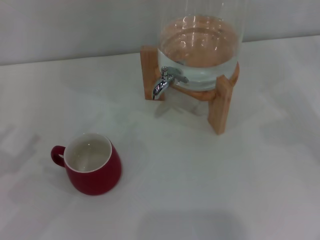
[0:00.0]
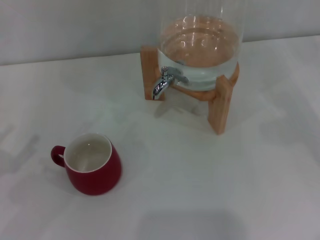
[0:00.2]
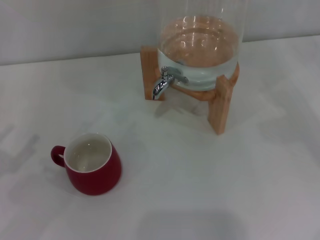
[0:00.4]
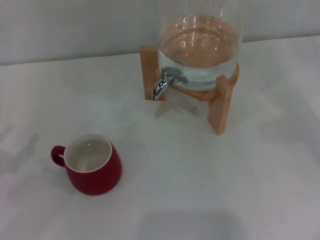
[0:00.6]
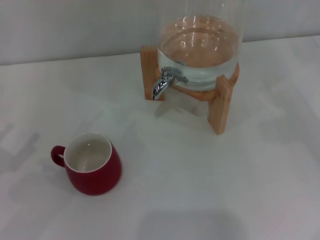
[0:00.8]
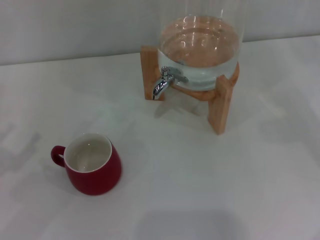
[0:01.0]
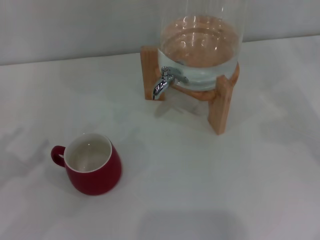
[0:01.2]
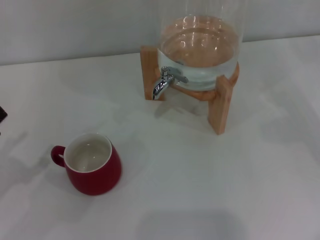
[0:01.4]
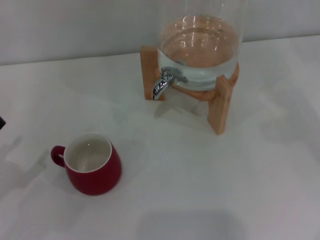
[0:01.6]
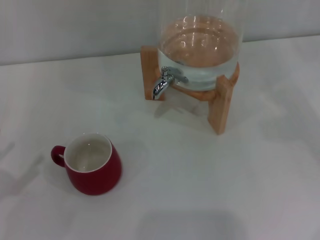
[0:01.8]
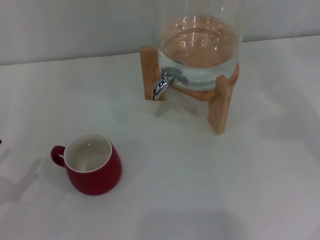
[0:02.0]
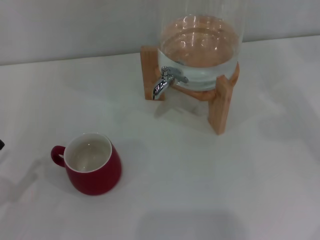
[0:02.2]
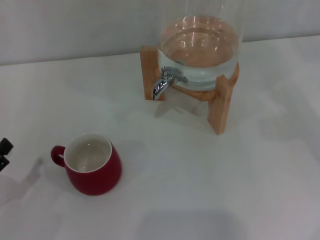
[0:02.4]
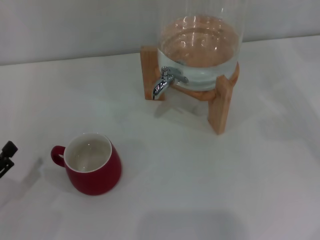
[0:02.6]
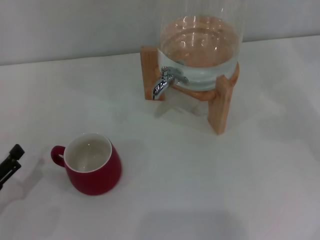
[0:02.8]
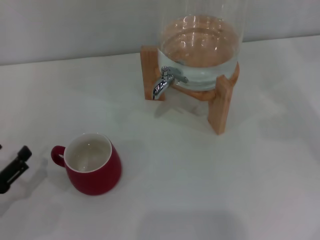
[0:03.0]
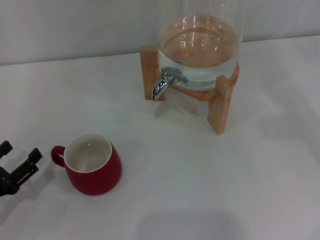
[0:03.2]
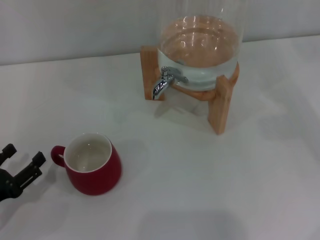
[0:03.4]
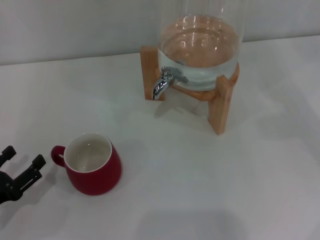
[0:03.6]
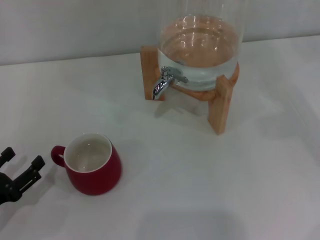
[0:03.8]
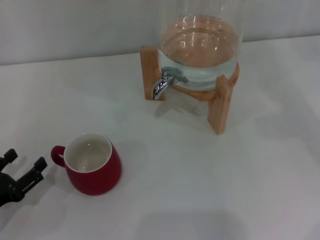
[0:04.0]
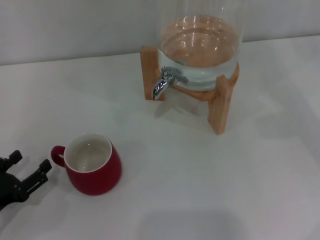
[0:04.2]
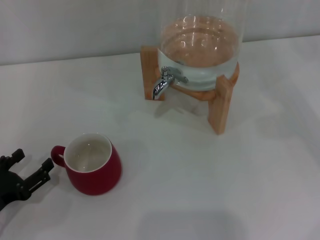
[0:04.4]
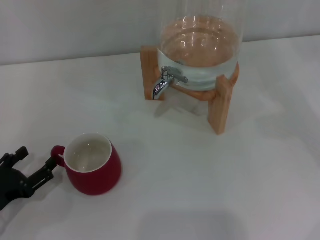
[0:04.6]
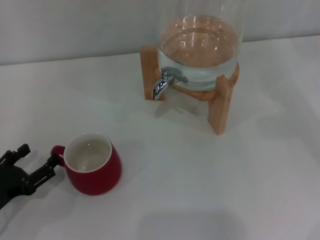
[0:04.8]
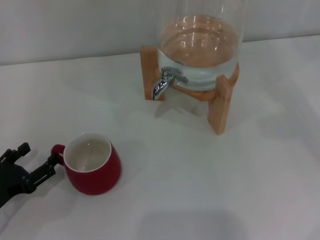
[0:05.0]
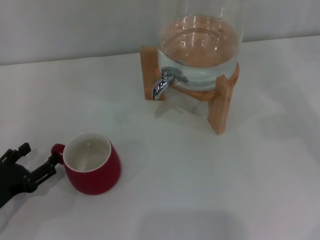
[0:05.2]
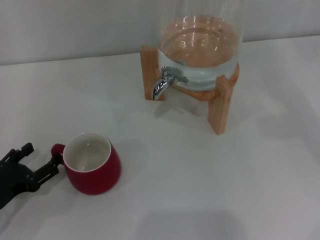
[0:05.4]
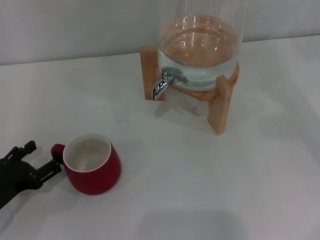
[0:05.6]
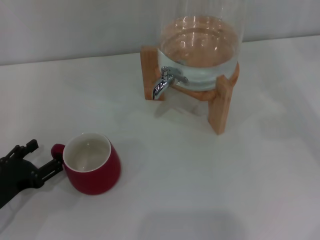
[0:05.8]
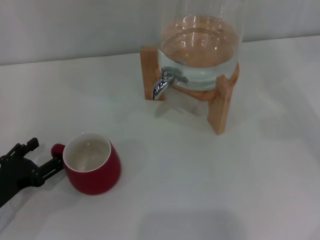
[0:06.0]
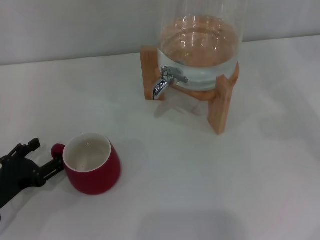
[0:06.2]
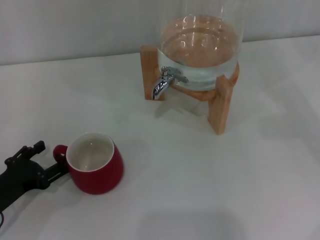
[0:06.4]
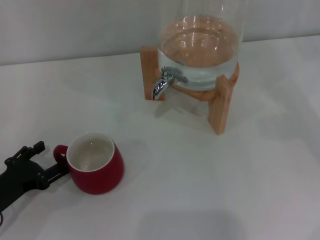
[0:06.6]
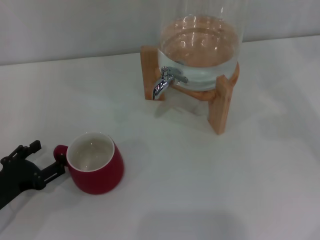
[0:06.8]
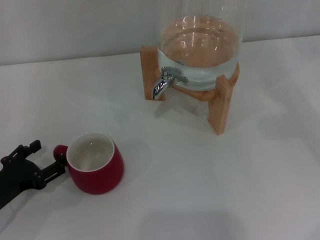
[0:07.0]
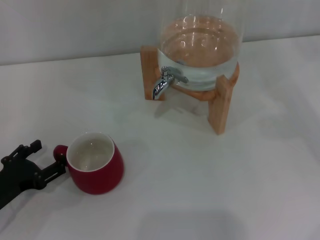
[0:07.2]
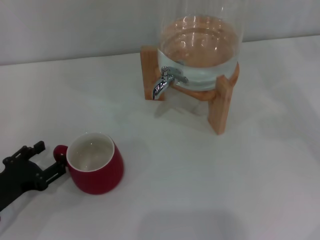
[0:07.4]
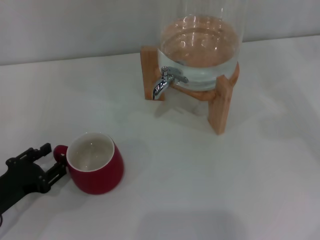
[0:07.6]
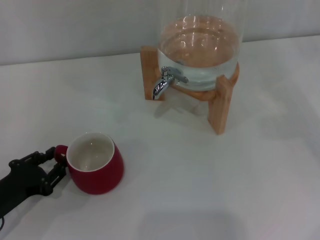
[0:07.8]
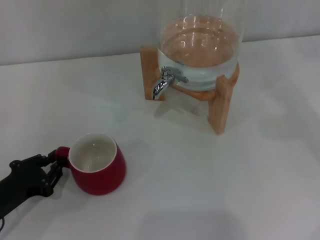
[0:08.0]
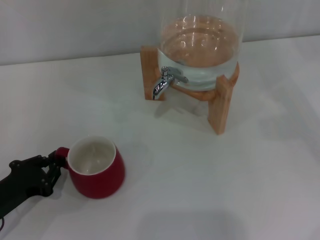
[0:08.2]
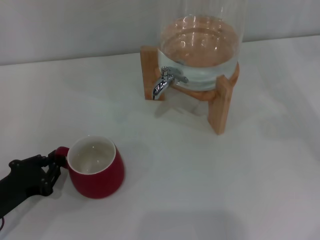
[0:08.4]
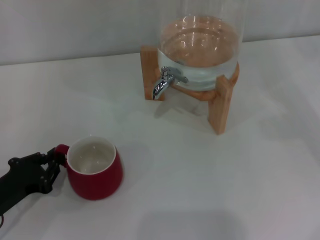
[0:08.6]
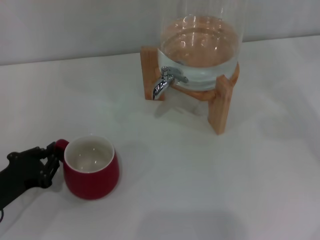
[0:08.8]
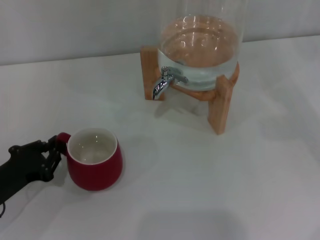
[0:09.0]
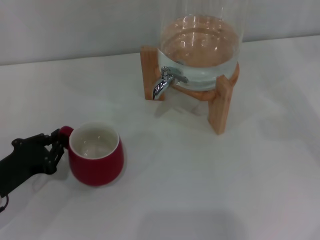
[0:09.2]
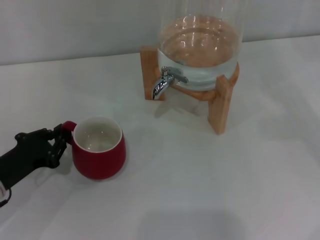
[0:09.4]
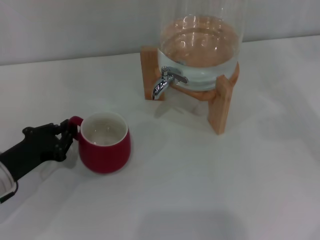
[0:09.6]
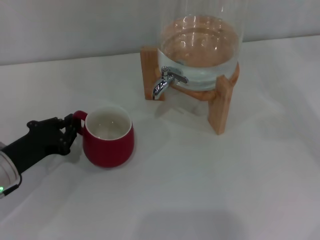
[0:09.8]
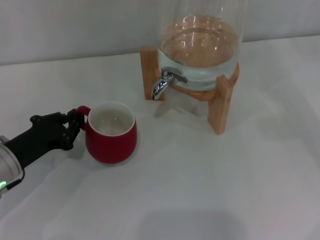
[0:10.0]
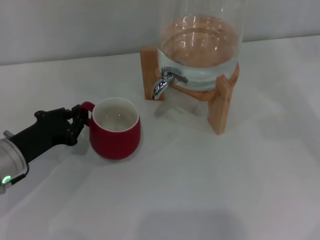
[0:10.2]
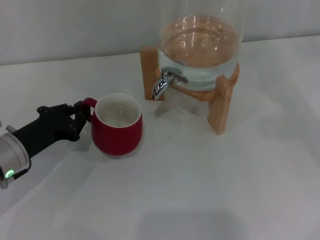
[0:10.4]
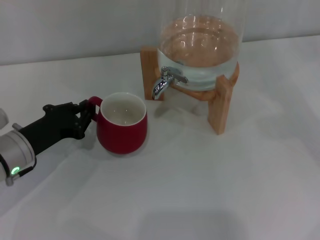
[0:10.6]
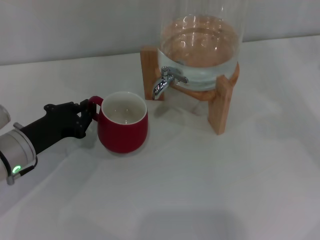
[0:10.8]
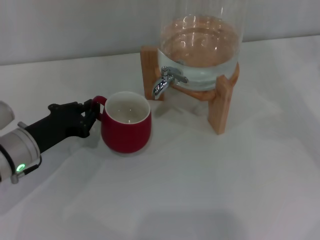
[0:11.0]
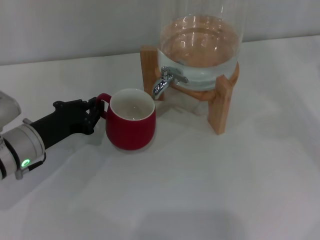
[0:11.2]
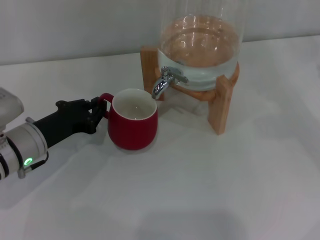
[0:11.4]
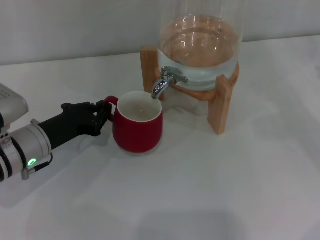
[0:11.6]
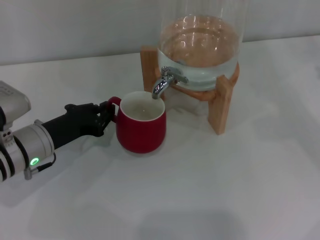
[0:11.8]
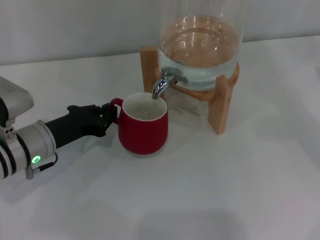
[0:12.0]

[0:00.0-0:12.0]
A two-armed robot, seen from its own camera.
Task of the whole recording: the left gripper pick up the red cup and place it horizontally under the faucet, the right gripper turn on the faucet to fill the cup, and then turn off the faucet.
0:01.6 to 0:03.0: The left gripper heads downward, covering some 5 cm.
0:03.0 to 0:07.6: There are only small adjustments of the grippers.
0:07.6 to 0:09.0: The left gripper closes.
0:09.0 to 0:10.4: The left gripper goes about 5 cm forward.
0:10.4 to 0:12.0: There are only small adjustments of the grippers.

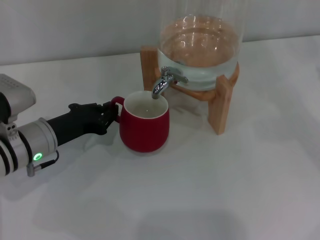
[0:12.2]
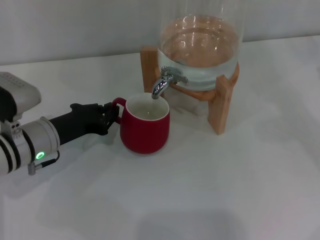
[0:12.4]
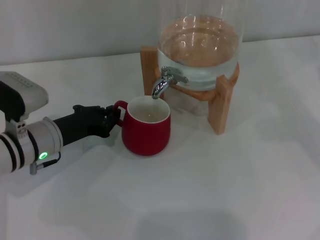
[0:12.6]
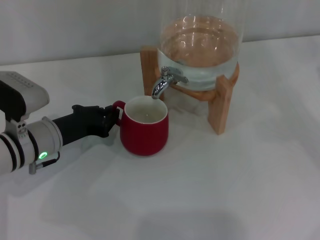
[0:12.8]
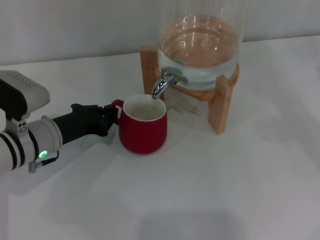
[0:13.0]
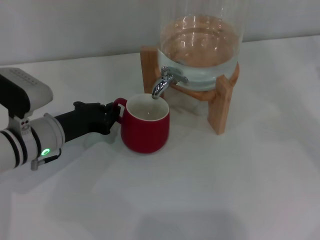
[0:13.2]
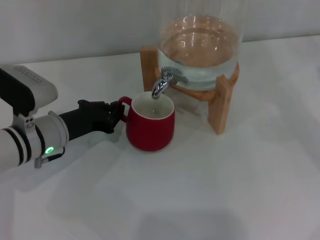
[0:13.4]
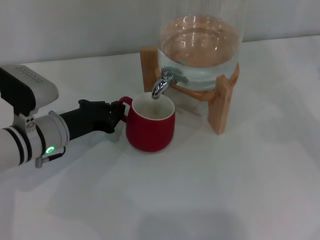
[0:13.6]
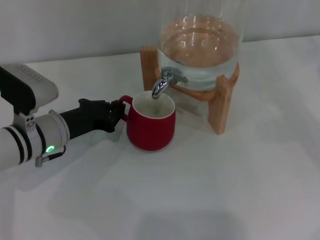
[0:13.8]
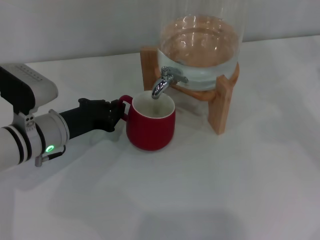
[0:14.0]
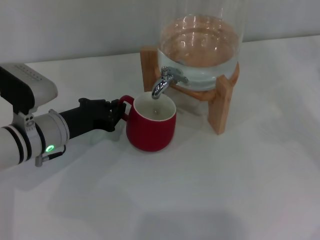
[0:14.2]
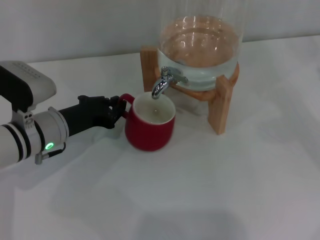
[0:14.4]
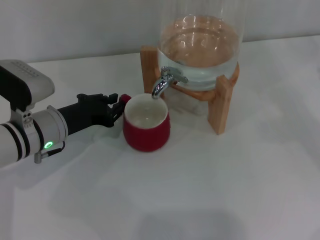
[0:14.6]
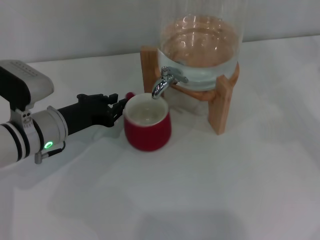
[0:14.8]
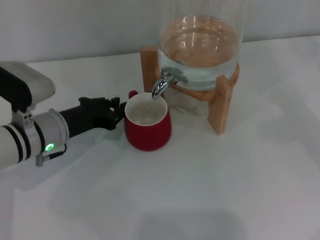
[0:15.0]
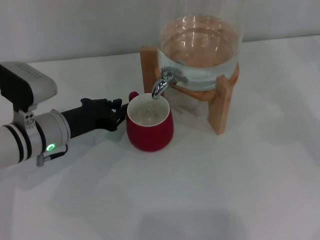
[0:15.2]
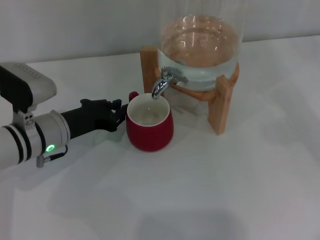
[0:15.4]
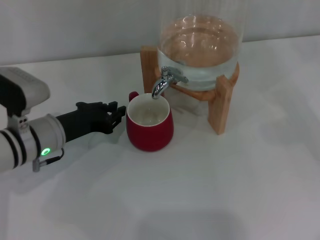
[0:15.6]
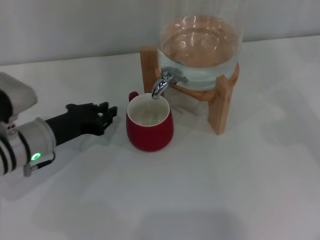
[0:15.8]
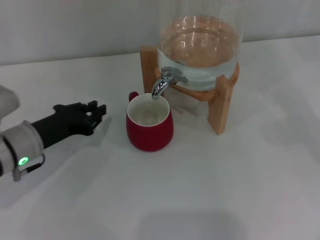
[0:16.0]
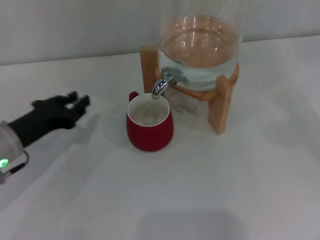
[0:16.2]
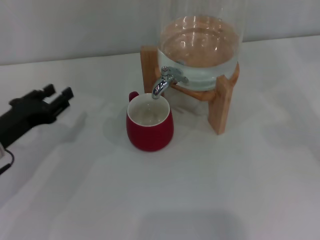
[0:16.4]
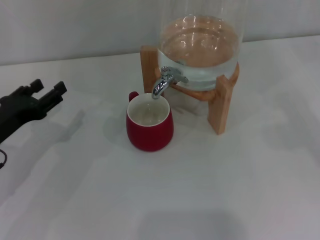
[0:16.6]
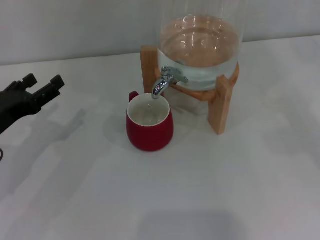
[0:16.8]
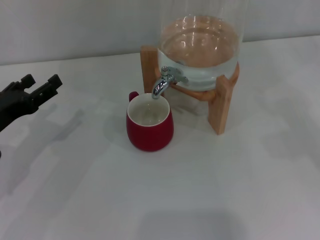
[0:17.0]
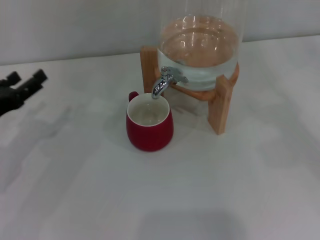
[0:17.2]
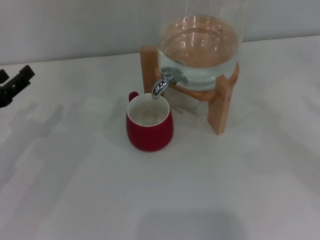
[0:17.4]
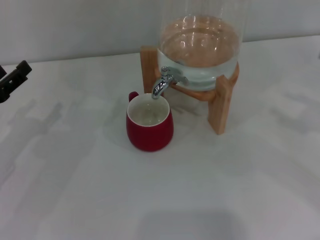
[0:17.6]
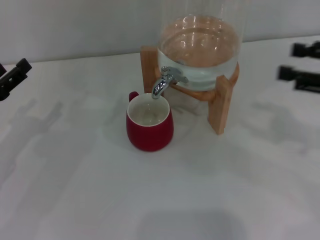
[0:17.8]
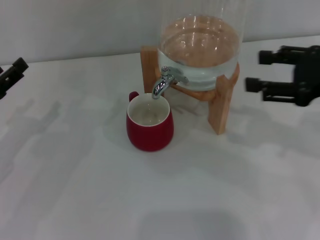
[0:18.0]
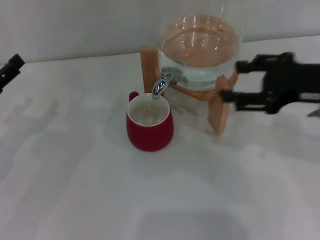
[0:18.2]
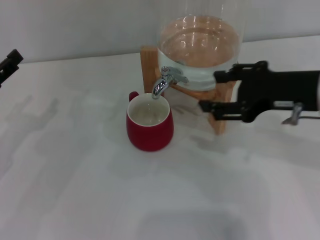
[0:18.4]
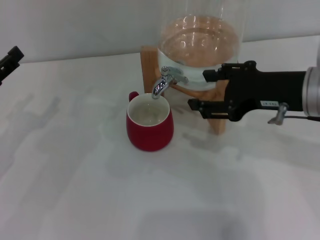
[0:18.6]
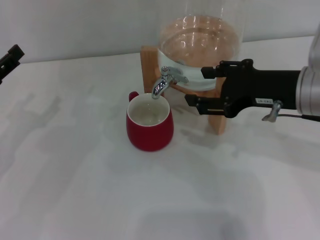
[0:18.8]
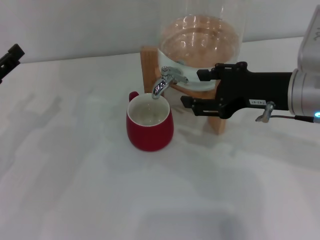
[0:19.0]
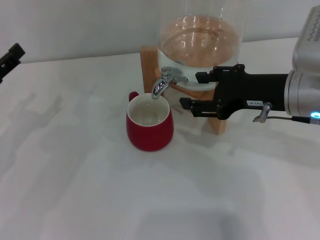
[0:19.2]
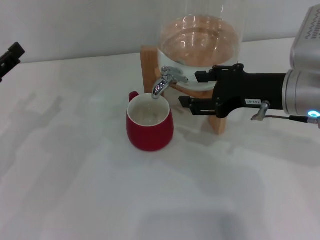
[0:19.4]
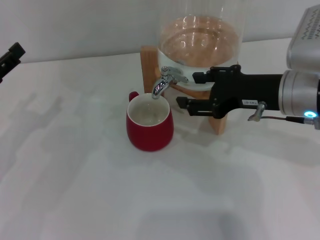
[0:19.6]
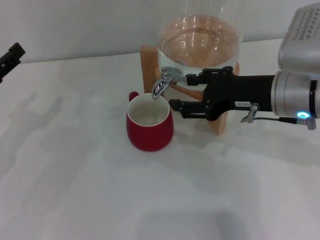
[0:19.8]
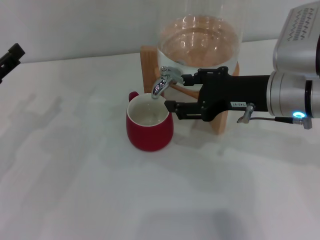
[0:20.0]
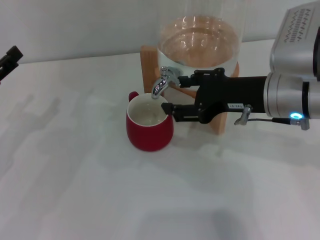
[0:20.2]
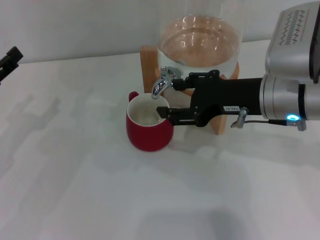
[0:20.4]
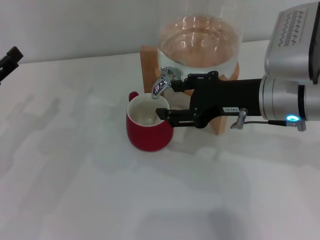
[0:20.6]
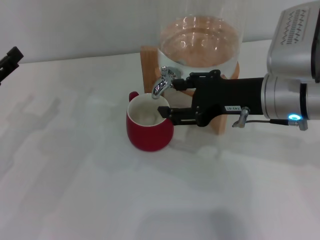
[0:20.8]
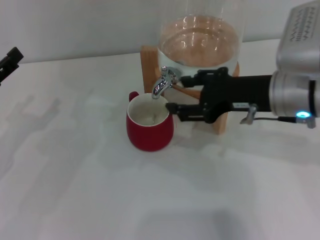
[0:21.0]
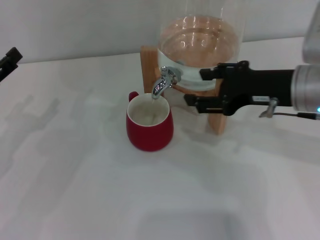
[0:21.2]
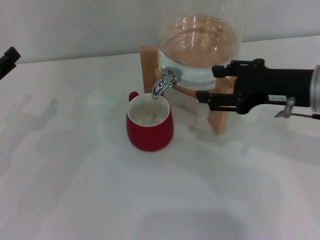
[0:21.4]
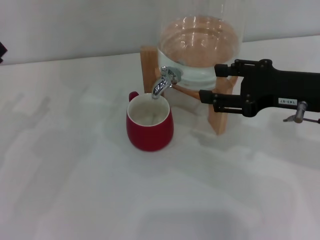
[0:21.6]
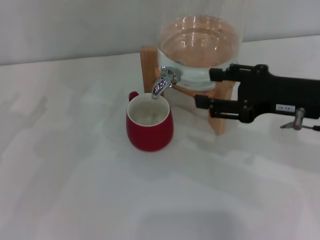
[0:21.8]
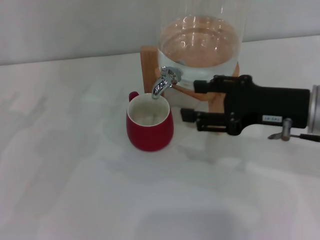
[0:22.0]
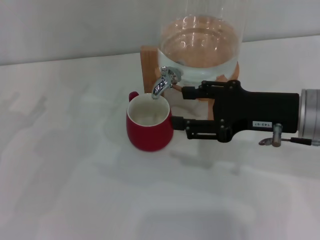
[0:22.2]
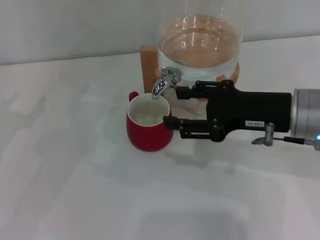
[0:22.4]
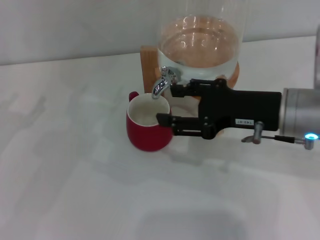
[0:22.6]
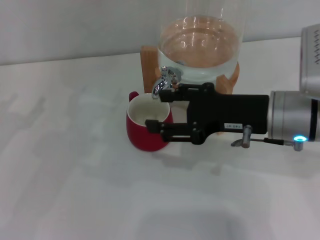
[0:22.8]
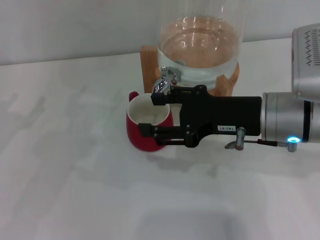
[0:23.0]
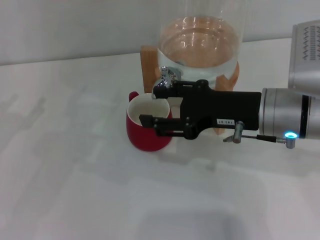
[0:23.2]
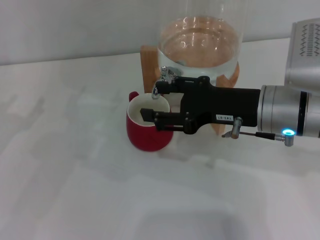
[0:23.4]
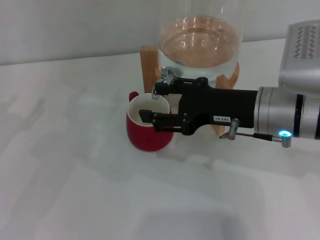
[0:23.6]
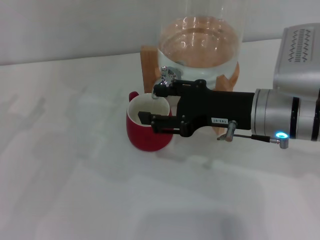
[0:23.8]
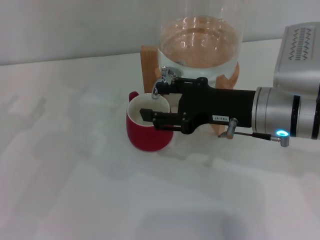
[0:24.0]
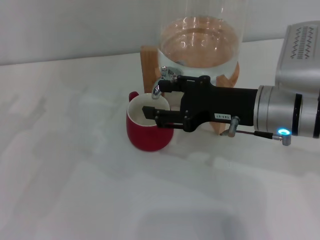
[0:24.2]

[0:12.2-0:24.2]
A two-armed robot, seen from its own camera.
Task of the whole recording: the left gripper pick up the red cup and place it horizontally under the faucet, the right gripper turn on the faucet to fill the cup, and then turn off the faucet.
Step, 0:12.2 to 0:15.8: Move the cup beneath the water dispenser nozzle with the left gripper.
Step, 0:16.0 to 0:23.0: Open the dispenser valve and fill the cup with water with the right gripper.
0:12.2 to 0:13.8: The grippers make only small movements.
0:13.8 to 0:15.2: Neither gripper changes place.
0:15.2 to 0:16.6: The left gripper travels to the left by roughly 10 cm, and opens its fingers.
0:16.6 to 0:18.2: The left gripper opens. Meanwhile the right gripper heads to the left, covering some 20 cm.
0:18.2 to 0:19.8: The right gripper travels to the left by about 5 cm.
0:19.8 to 0:24.2: The grippers move only a little.
